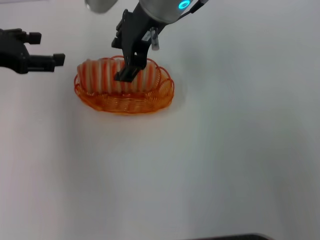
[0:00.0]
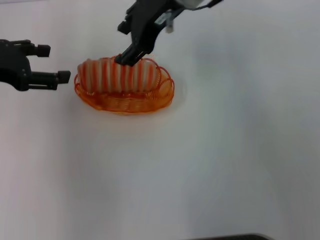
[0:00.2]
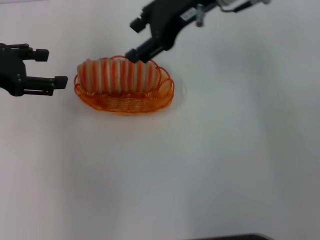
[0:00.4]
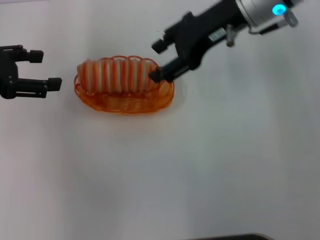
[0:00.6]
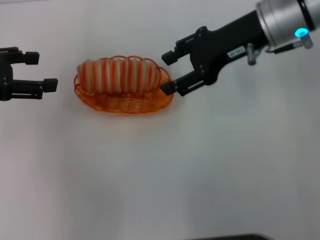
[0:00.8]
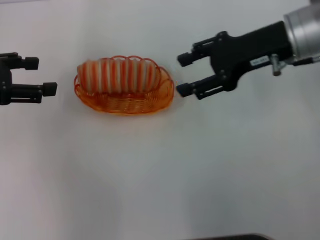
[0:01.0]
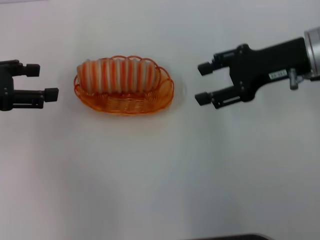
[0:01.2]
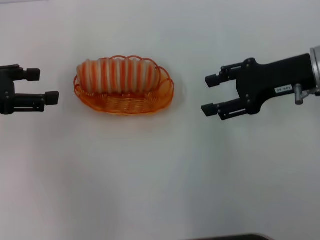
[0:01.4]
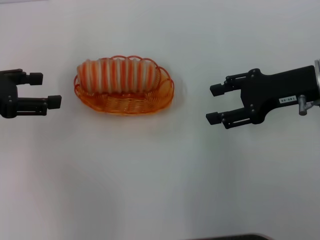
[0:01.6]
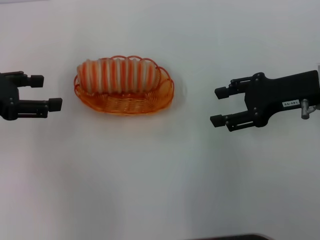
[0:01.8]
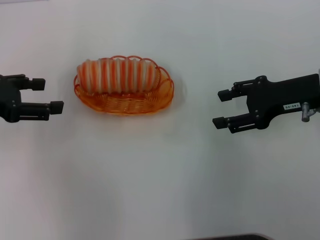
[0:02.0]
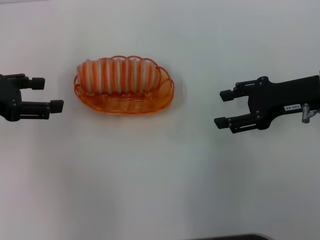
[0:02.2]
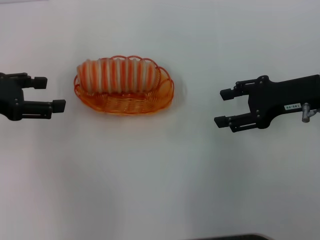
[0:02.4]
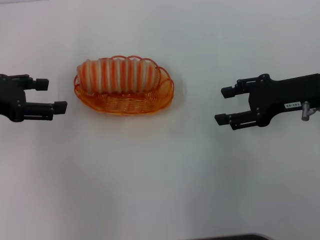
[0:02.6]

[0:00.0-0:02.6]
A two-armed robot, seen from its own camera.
0:00.0 to 0:01.2: The right gripper goes approximately 20 cm to the right.
0:01.2 to 0:02.6: The right gripper moves approximately 5 cm.

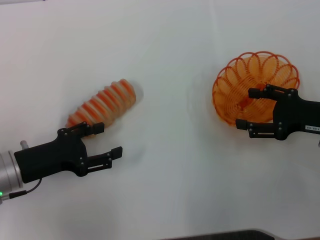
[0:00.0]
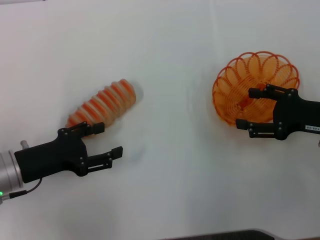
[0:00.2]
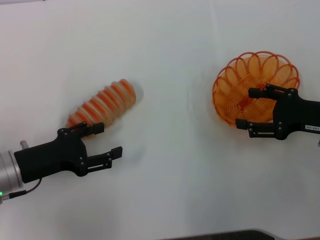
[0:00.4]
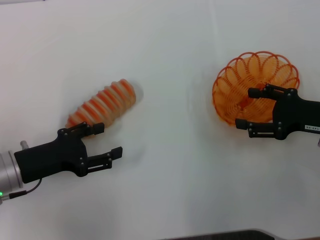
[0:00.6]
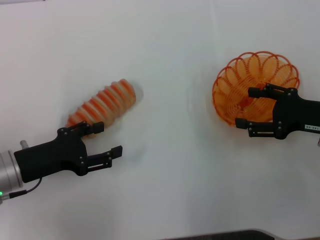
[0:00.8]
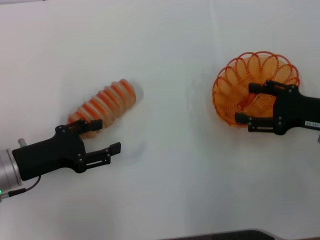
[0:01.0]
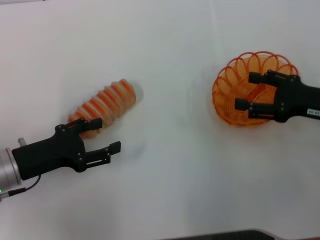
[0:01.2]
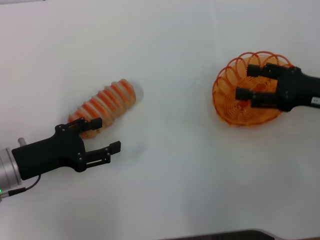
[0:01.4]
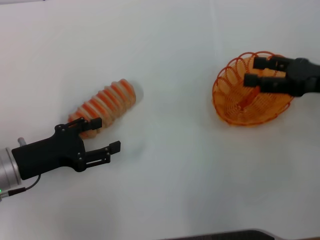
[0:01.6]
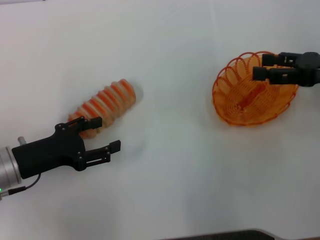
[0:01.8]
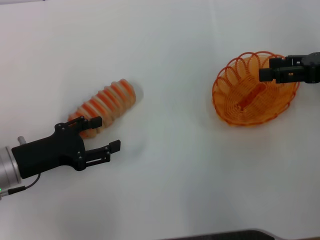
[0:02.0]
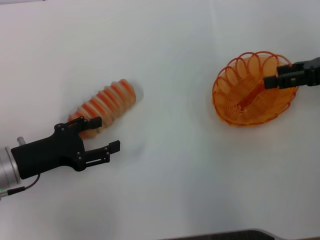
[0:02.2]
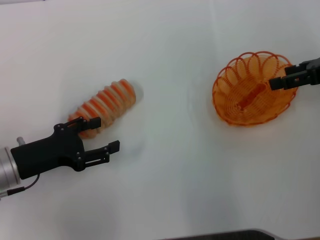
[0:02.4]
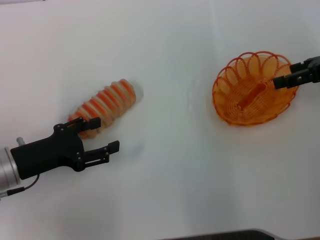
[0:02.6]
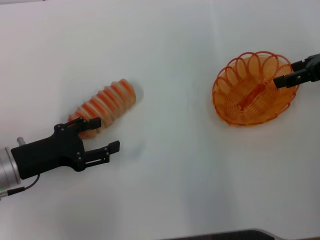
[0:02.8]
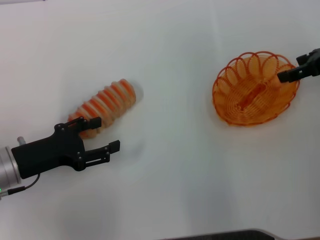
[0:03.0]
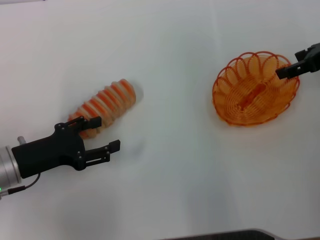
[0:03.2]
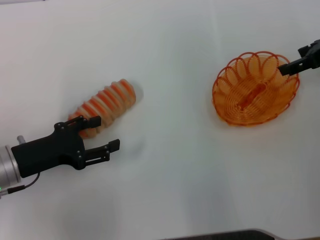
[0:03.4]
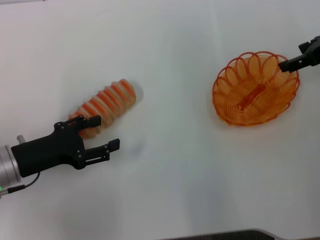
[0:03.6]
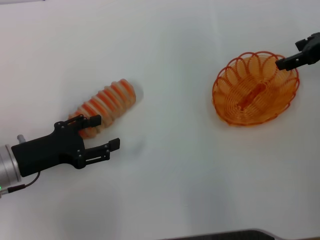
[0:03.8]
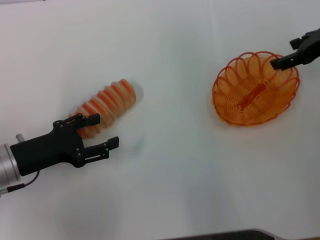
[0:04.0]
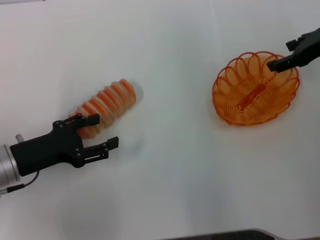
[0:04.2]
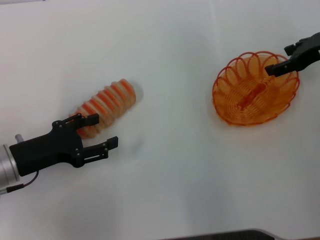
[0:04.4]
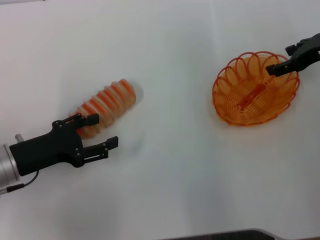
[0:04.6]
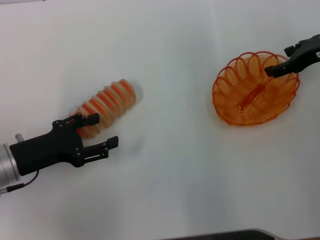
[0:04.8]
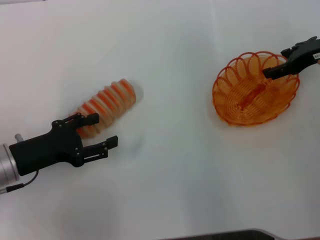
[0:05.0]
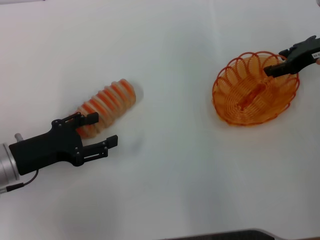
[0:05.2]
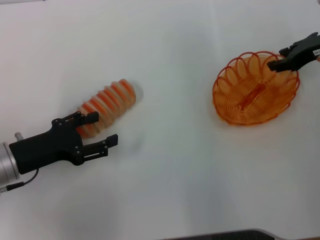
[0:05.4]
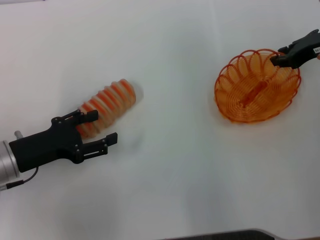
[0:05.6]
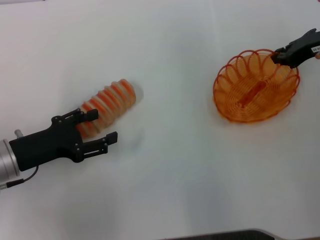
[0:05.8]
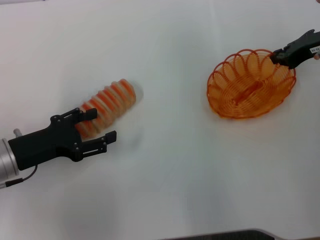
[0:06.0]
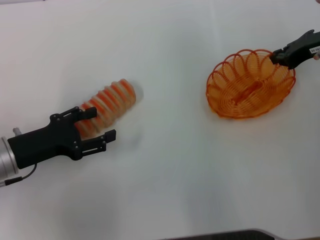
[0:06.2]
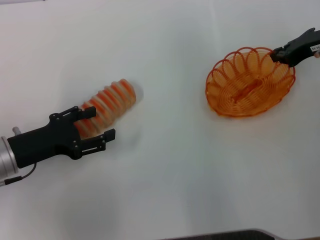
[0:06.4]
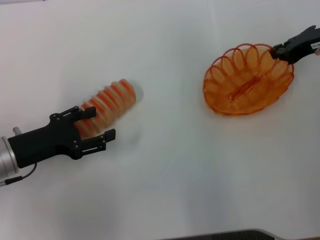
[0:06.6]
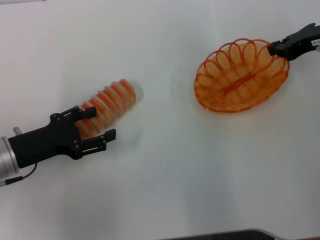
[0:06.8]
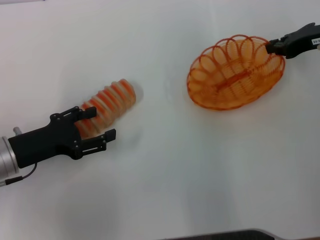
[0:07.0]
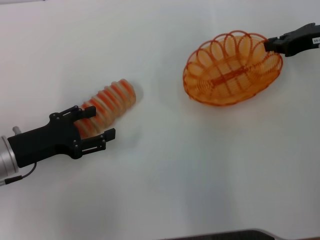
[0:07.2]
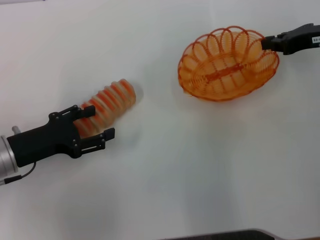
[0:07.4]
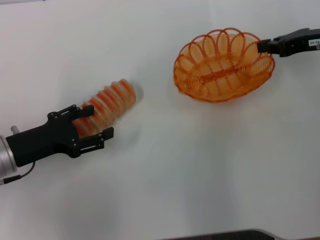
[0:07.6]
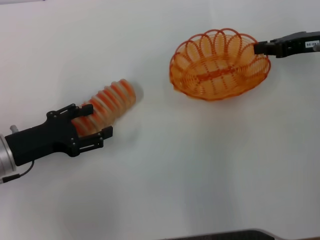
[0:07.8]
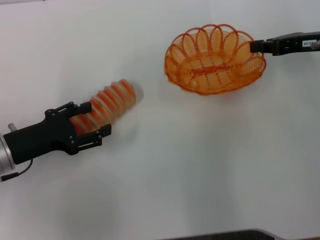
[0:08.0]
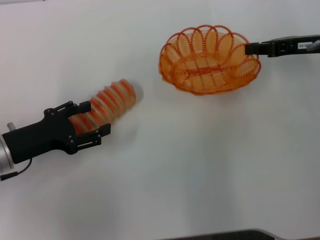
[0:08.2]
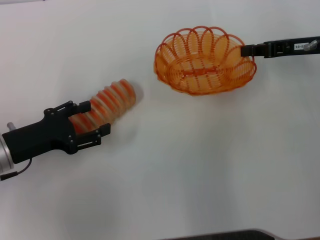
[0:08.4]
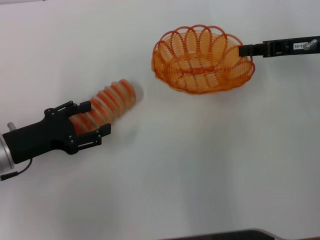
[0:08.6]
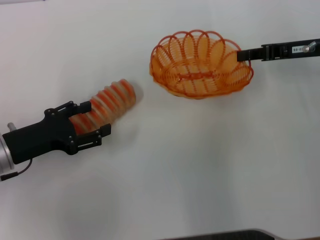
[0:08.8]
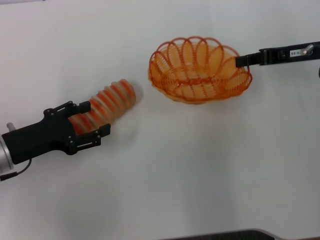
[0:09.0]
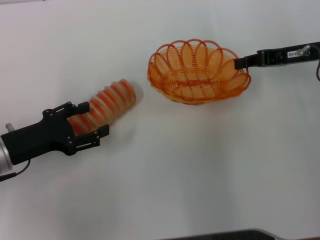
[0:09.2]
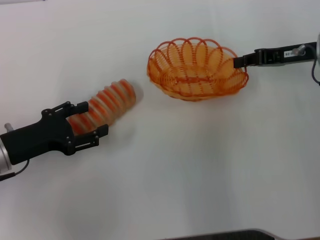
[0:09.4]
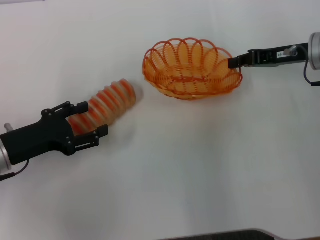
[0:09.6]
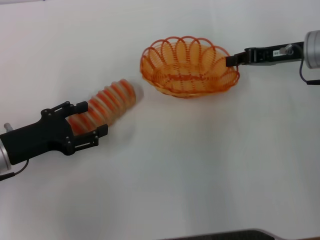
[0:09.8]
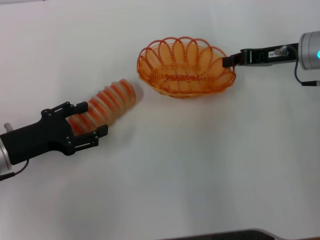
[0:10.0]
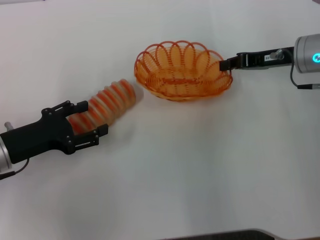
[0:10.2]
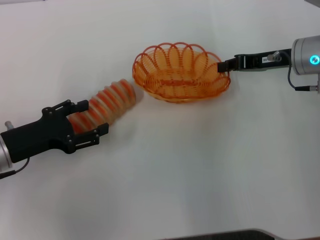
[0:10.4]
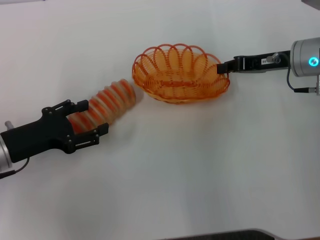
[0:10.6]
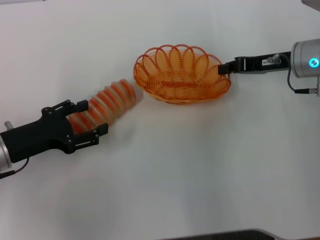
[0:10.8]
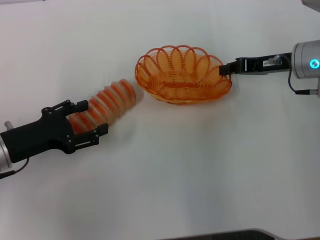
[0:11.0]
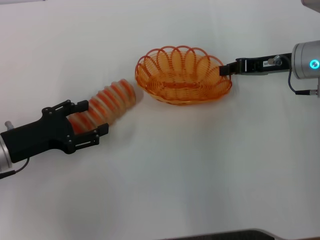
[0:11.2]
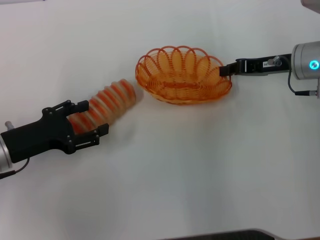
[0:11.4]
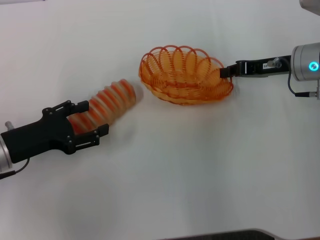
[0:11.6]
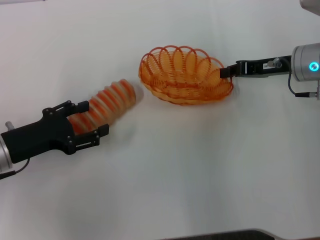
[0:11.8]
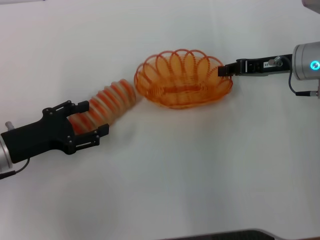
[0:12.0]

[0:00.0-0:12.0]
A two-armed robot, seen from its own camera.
Step, 0:00.0 to 0:06.8: Pick up the basket with the right gripper.
0:00.0 to 0:01.6: The right gripper changes place by roughly 5 cm.
0:01.6 to 0:03.0: The right gripper goes about 10 cm forward.
0:03.0 to 0:04.4: The grippers move only a little.
0:04.4 to 0:06.0: The right gripper closes up.
0:07.6 to 0:09.0: There are only small adjustments of the grippers.
0:09.0 to 0:10.4: The grippers make only small movements.
0:10.4 to 0:12.0: Both grippers stay about where they are.

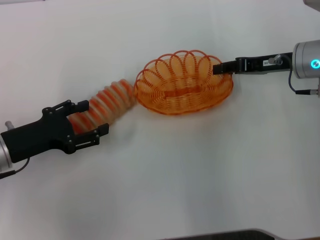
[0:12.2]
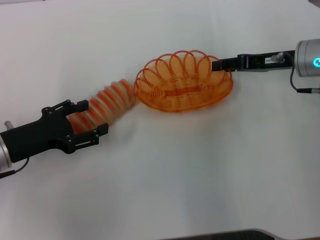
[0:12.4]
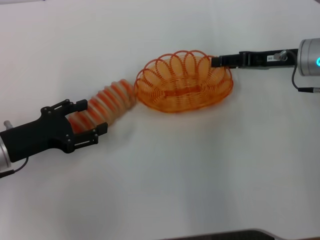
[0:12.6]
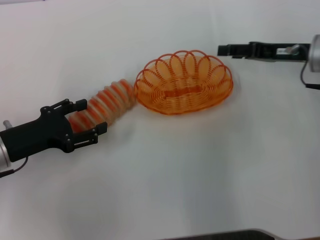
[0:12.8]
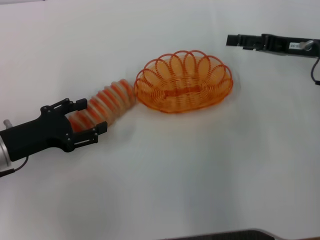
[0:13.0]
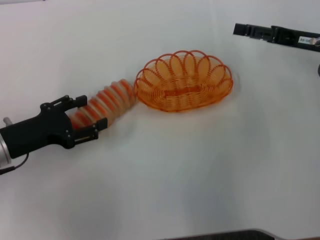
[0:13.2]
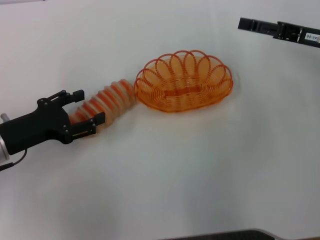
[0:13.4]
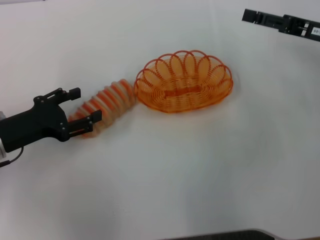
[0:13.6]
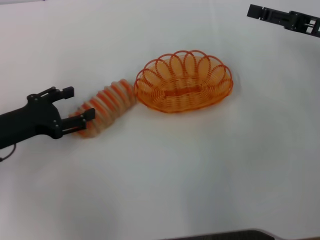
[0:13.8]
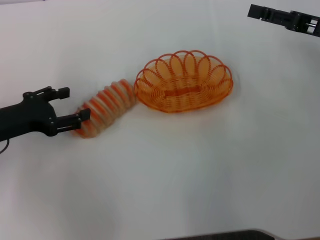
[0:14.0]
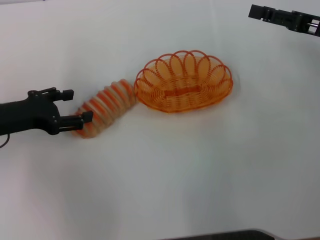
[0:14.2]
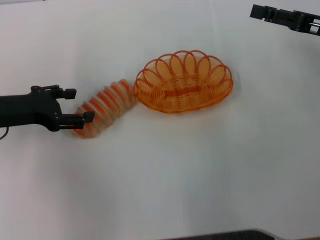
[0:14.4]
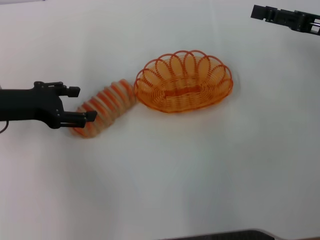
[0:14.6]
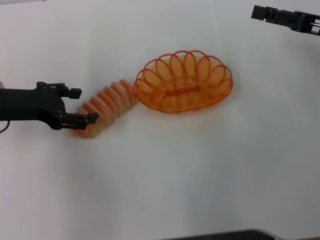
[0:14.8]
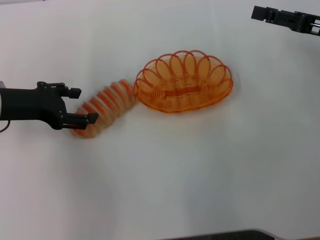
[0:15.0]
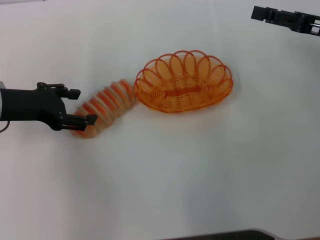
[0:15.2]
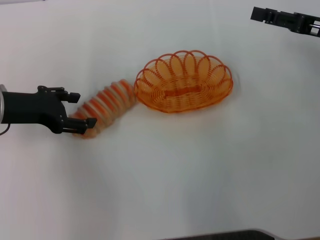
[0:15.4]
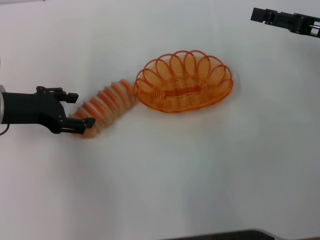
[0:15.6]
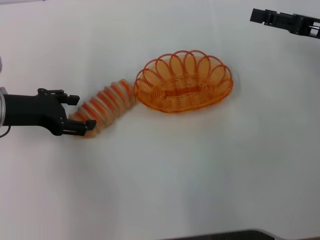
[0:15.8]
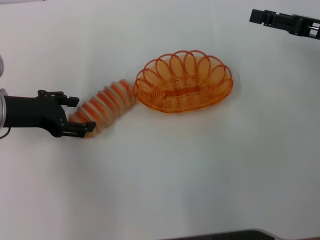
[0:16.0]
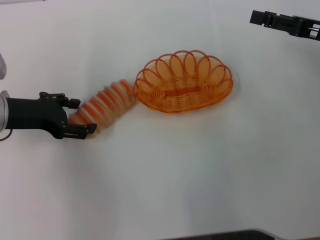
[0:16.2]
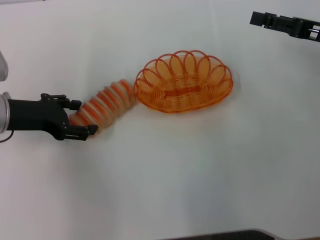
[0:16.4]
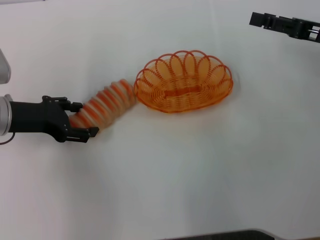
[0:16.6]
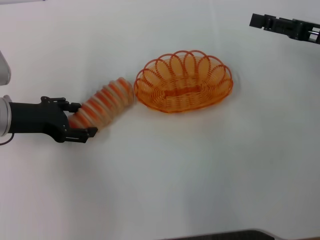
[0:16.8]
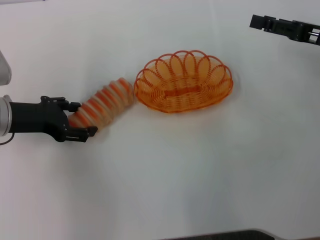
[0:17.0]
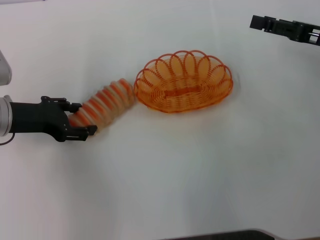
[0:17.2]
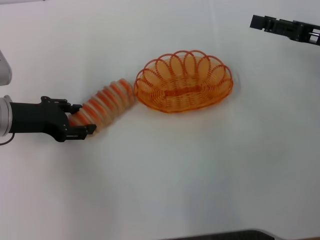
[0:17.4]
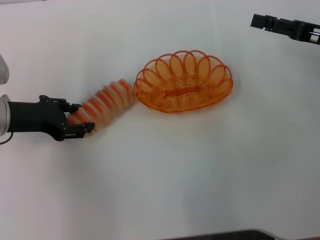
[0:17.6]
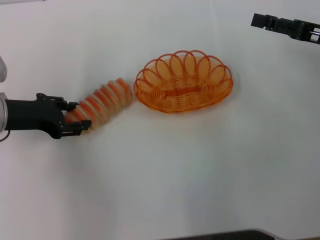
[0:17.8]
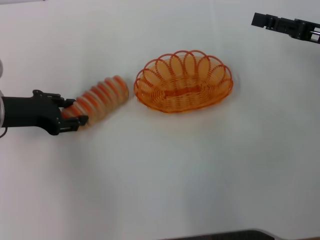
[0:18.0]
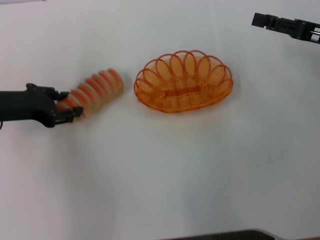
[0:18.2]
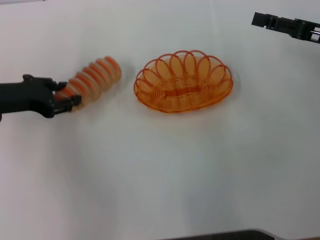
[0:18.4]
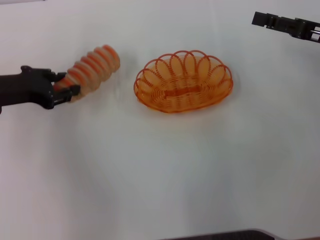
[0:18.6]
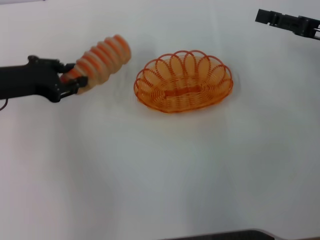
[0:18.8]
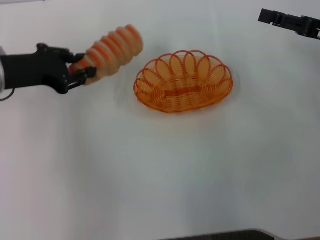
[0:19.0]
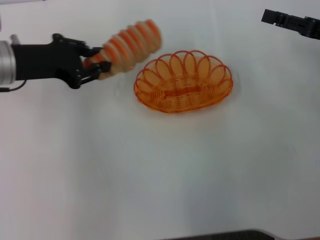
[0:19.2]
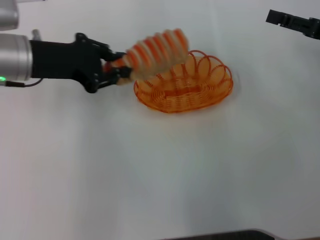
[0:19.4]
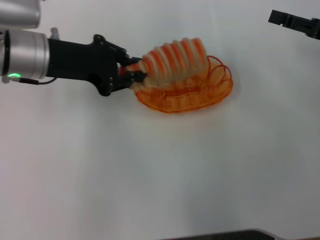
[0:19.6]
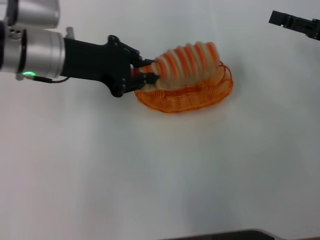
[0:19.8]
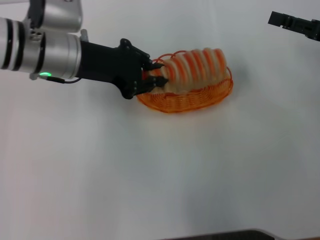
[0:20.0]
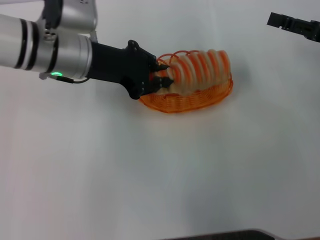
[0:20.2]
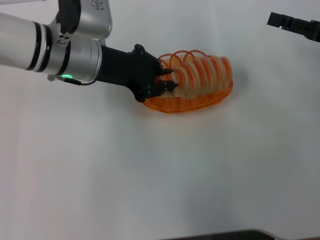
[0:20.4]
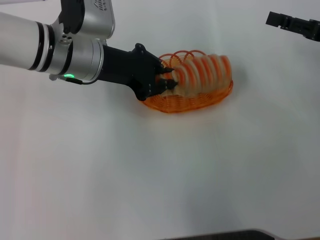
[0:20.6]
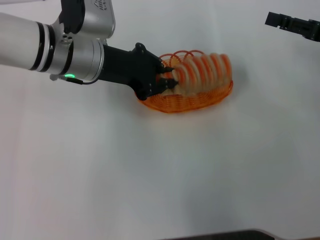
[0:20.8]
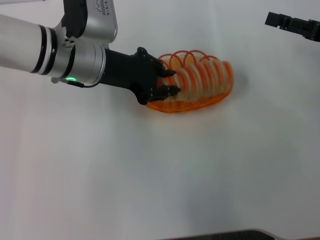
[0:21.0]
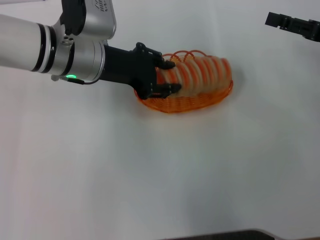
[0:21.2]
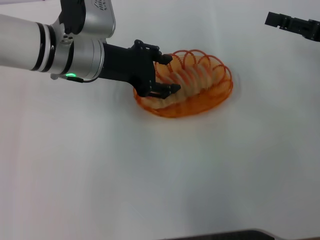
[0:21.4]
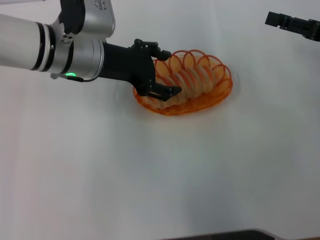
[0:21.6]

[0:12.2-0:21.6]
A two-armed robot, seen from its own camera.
Step, 0:13.2 to 0:18.2: Pick up the long bread with the left gripper.
0:12.2 to 0:13.8: The right gripper shifts roughly 5 cm to the right, and opens up.
0:13.8 to 0:15.4: The left gripper shifts by about 5 cm.
0:15.4 to 0:17.0: The grippers stay close to where they were, moving slightly.
0:17.0 to 0:18.4: The left gripper closes its fingers.
0:18.4 to 0:20.0: The left gripper moves to the right and upward, about 15 cm, and closes.
0:20.0 to 0:21.6: The left gripper opens its fingers.
